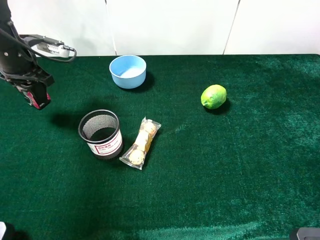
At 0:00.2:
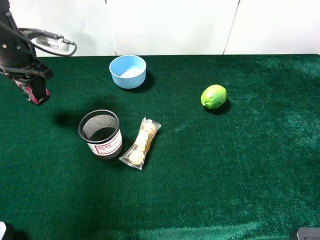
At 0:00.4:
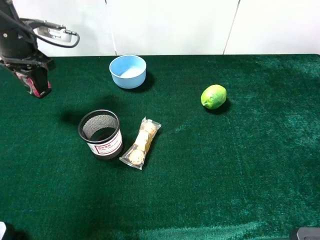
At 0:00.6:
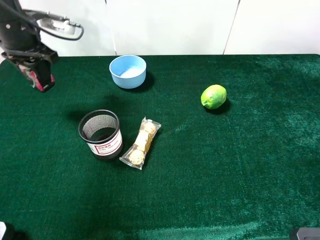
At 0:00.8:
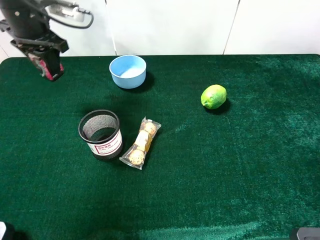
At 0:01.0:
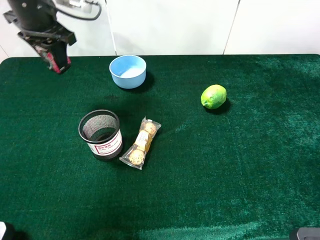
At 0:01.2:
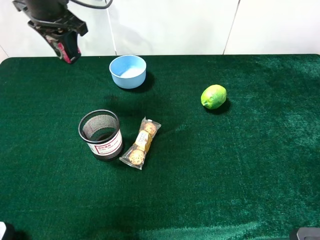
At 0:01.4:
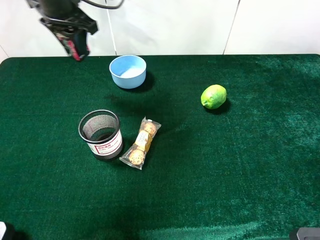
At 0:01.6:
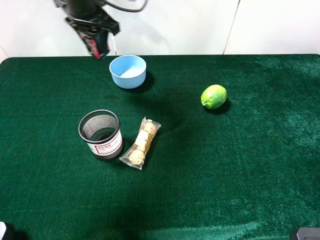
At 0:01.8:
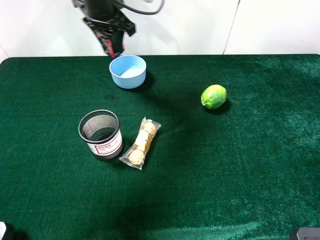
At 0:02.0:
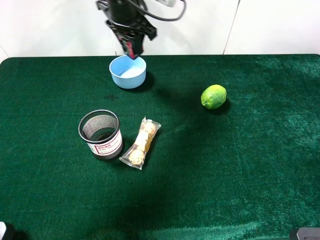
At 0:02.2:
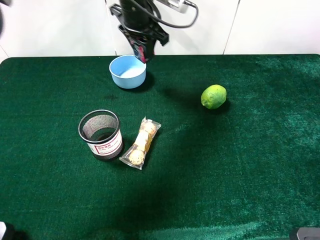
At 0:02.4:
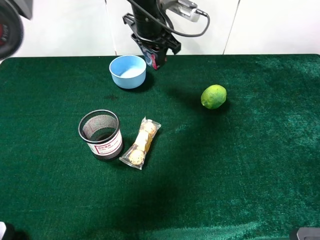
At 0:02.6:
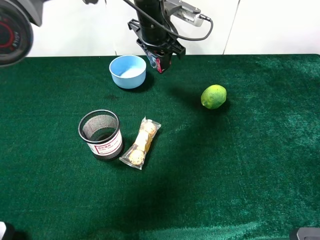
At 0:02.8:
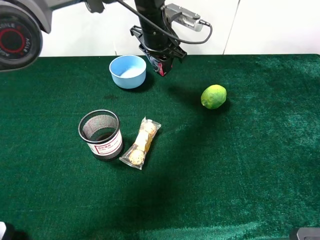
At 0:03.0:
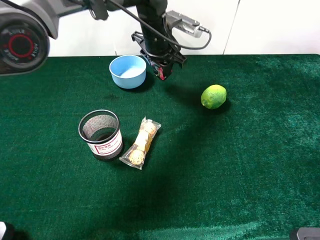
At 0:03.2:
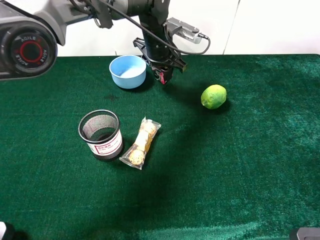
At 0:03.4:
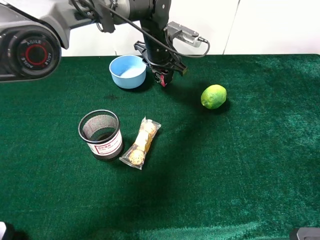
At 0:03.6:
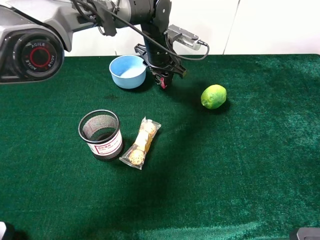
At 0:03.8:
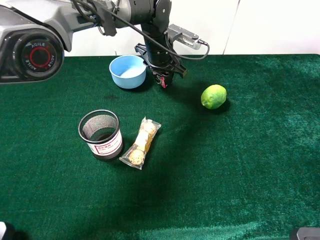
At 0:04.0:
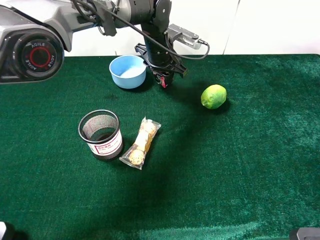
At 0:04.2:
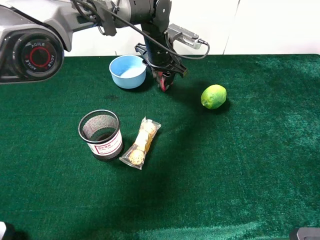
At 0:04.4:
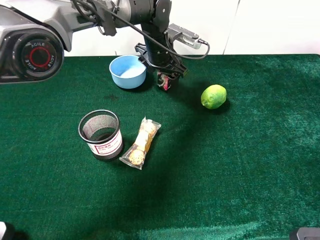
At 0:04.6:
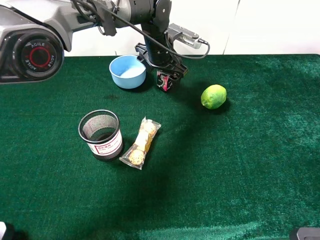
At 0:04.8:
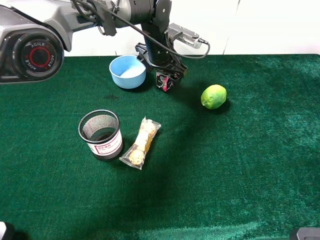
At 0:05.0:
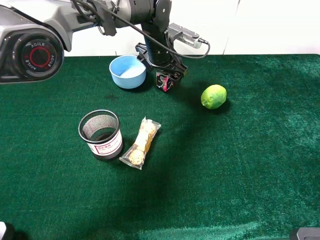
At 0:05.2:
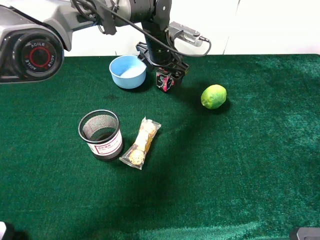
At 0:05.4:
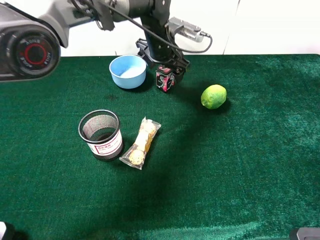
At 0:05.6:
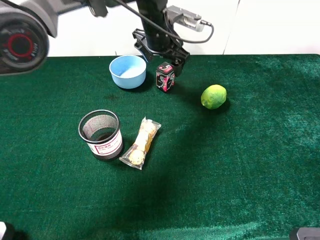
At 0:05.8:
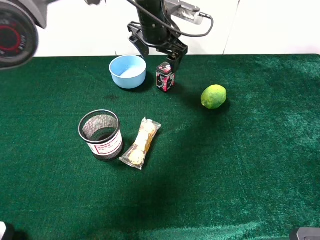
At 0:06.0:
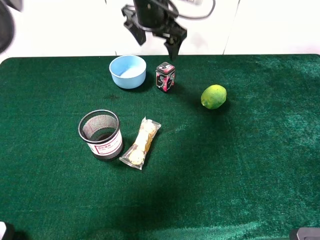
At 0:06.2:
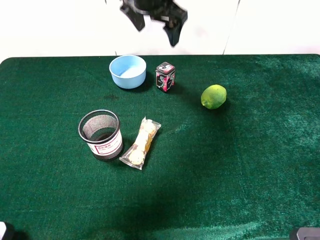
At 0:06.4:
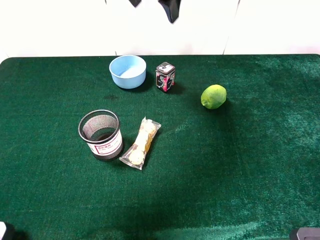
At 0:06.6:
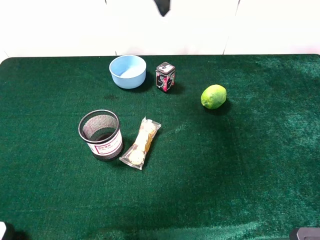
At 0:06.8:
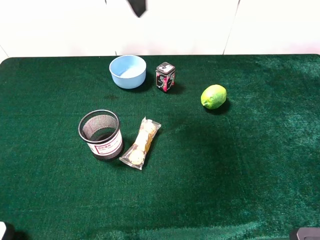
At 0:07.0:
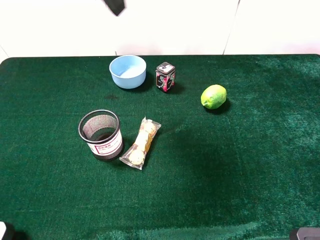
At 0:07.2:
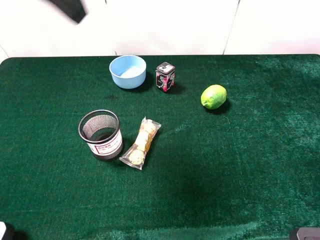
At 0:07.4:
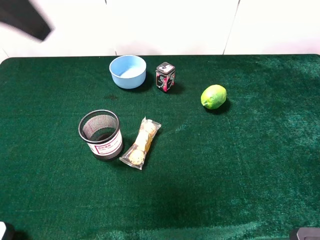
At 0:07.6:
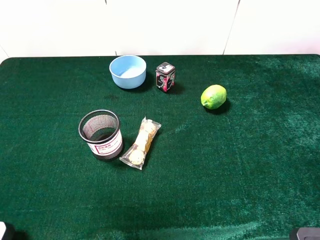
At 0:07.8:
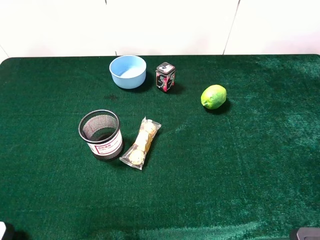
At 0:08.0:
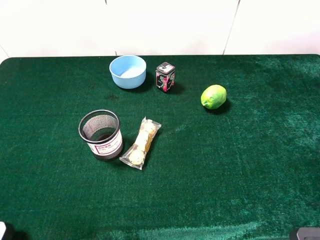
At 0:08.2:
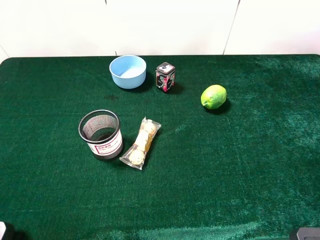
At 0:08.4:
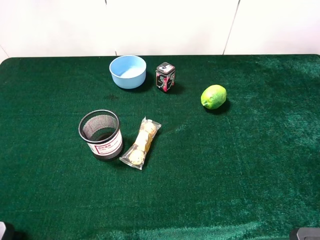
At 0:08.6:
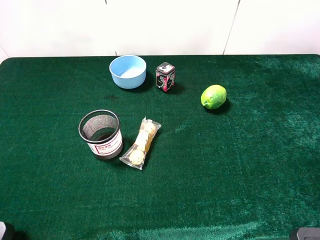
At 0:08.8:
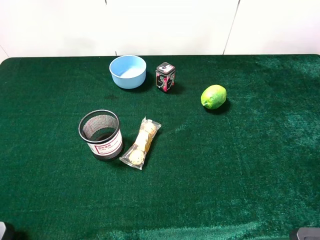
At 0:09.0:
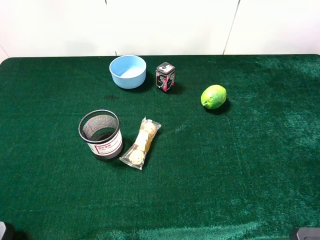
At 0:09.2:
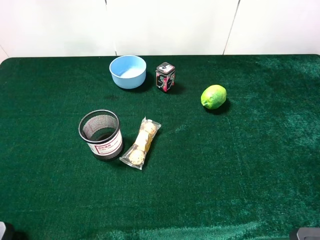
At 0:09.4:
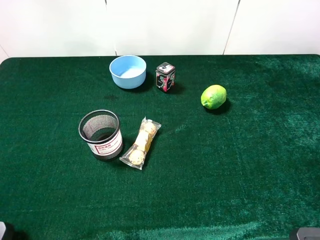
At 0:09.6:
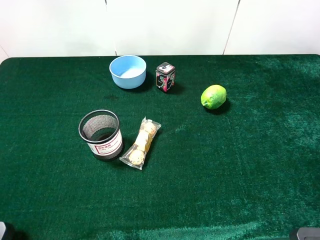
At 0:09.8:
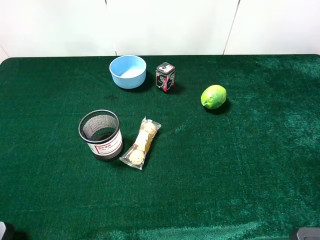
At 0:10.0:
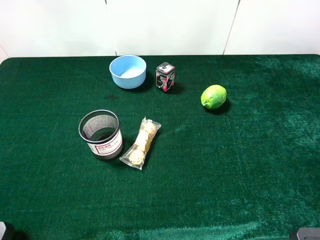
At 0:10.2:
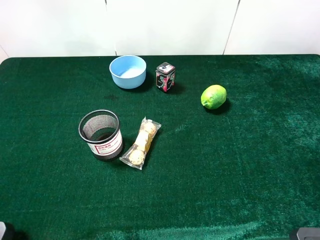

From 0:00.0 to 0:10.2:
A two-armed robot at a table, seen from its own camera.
Task of the whole recording: the gripper move the object.
Step, from 0:00.0 to 0:04.8: Place the square chewing gun on the table with the left gripper.
From 0:00.0 to 0:01.4: The left gripper moves to the right and upward, roughly 15 cm.
From 0:01.4 to 0:03.0: The left gripper heads to the right and downward, covering about 20 cm.
From 0:03.0 to 0:04.4: The left gripper opens up.
From 0:04.4 to 0:05.8: The left gripper heads upward, covering some 10 cm.
From 0:05.8 to 0:07.2: The left gripper heads backward, upward and to the left, covering about 35 cm.
From 0:07.2 to 0:08.8: The left gripper travels backward, to the left and downward by some 30 cm.
